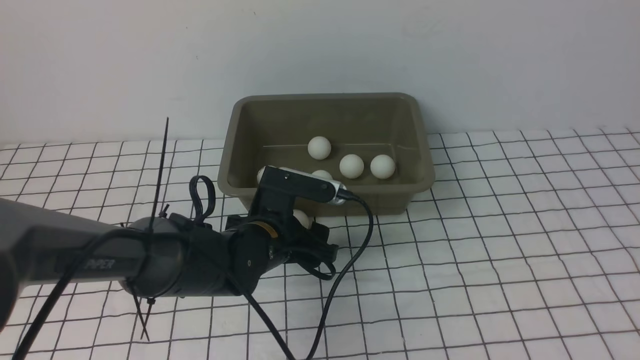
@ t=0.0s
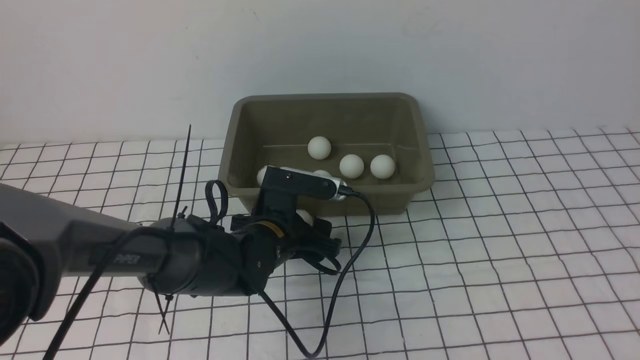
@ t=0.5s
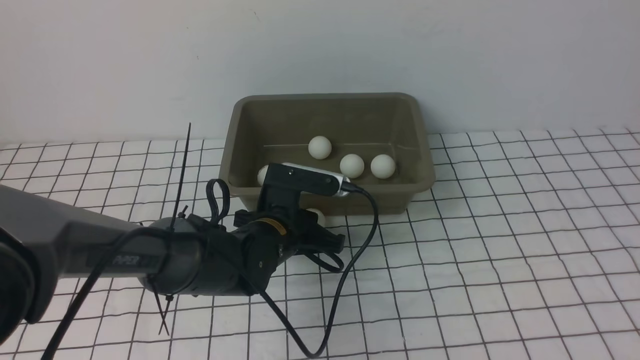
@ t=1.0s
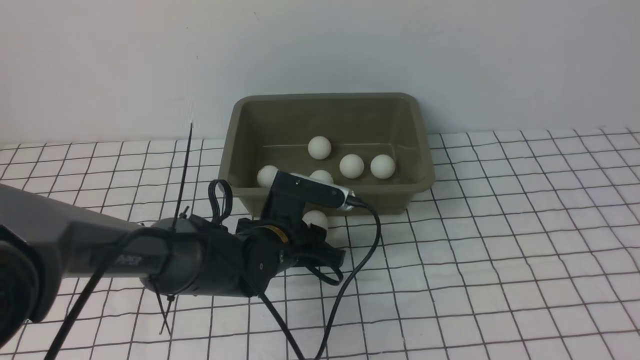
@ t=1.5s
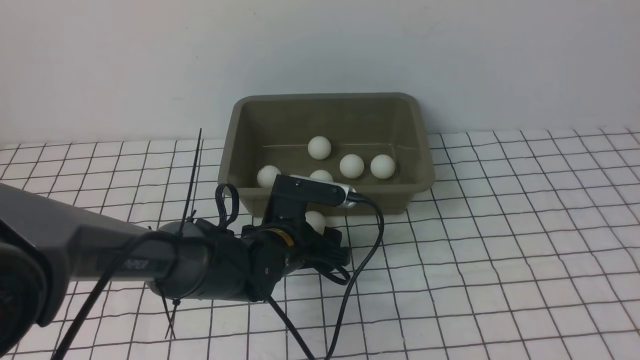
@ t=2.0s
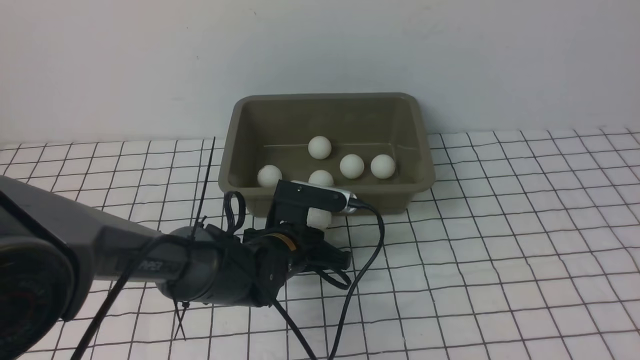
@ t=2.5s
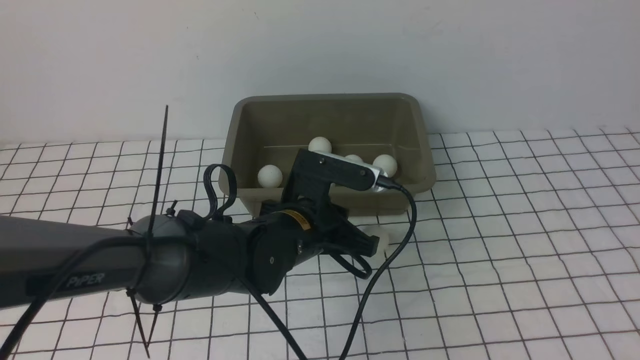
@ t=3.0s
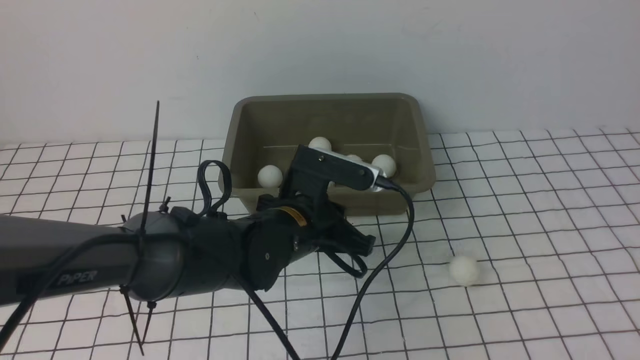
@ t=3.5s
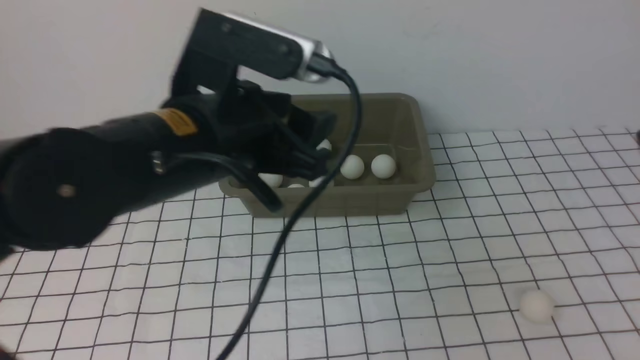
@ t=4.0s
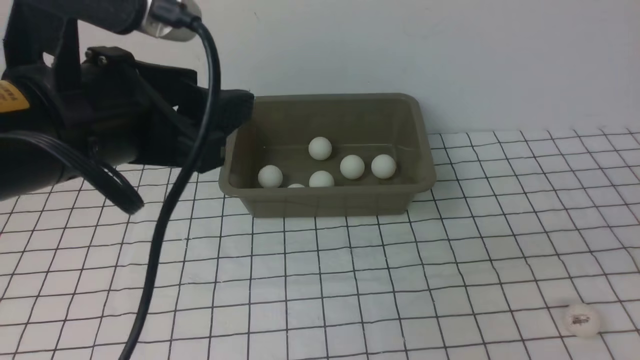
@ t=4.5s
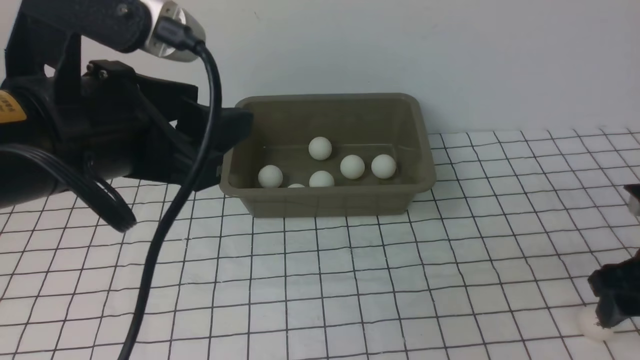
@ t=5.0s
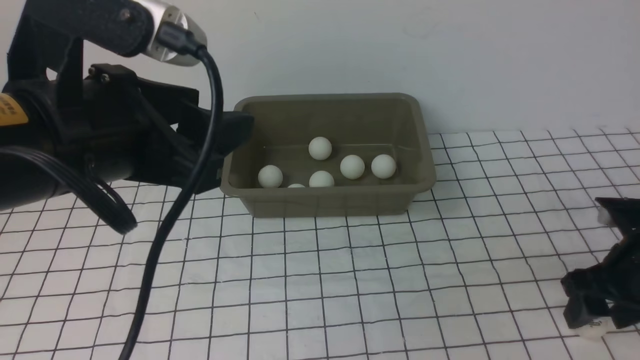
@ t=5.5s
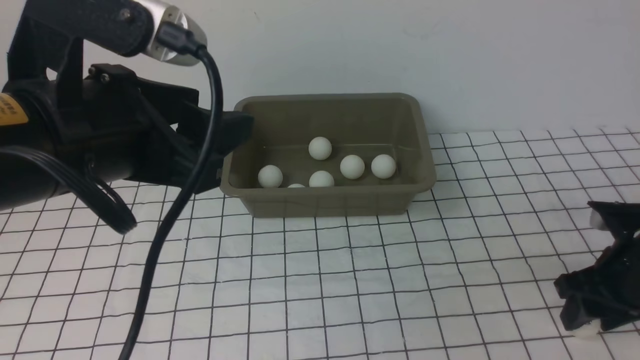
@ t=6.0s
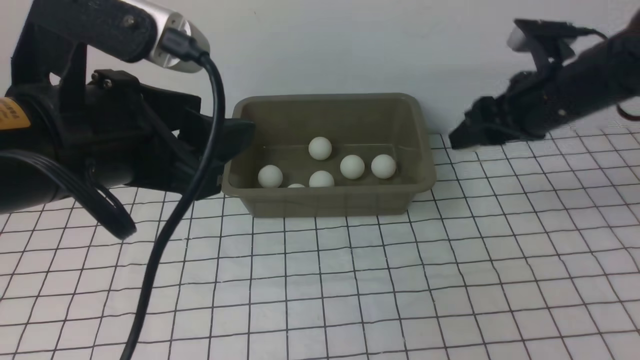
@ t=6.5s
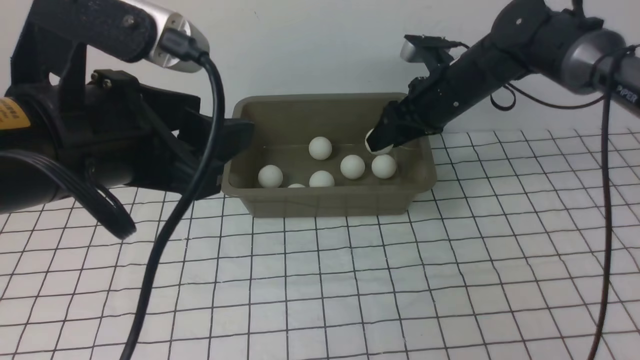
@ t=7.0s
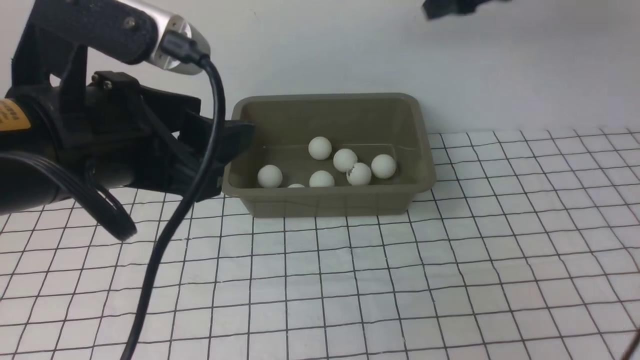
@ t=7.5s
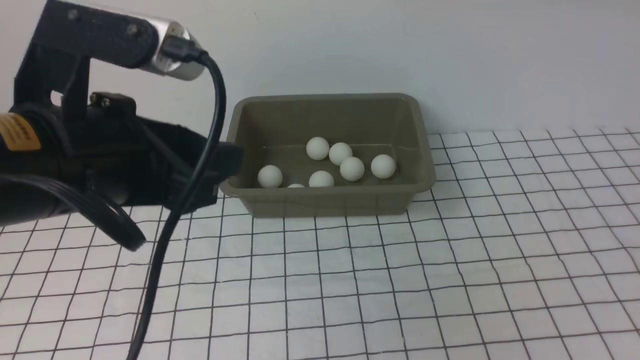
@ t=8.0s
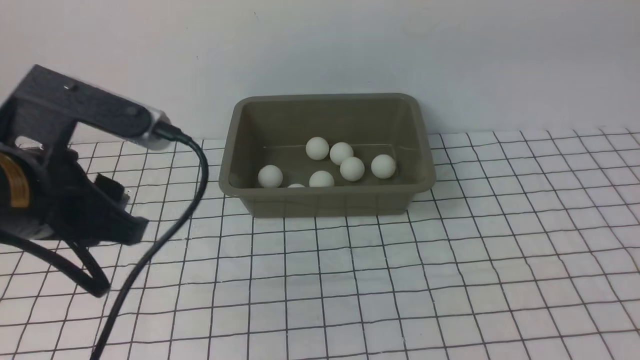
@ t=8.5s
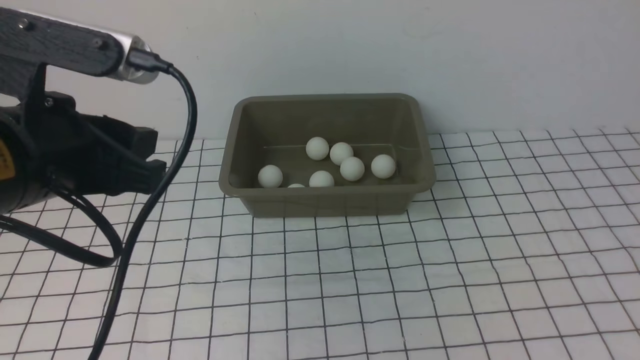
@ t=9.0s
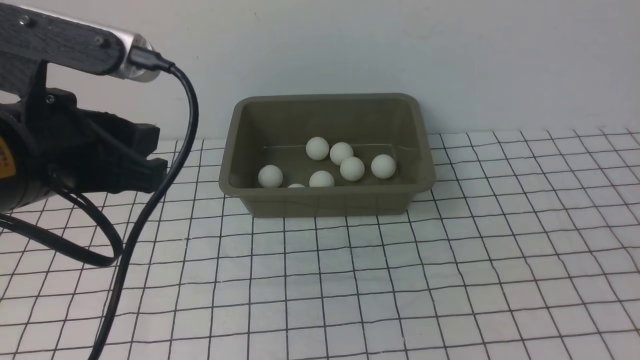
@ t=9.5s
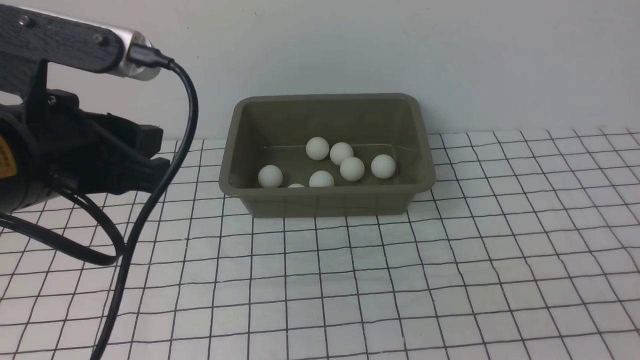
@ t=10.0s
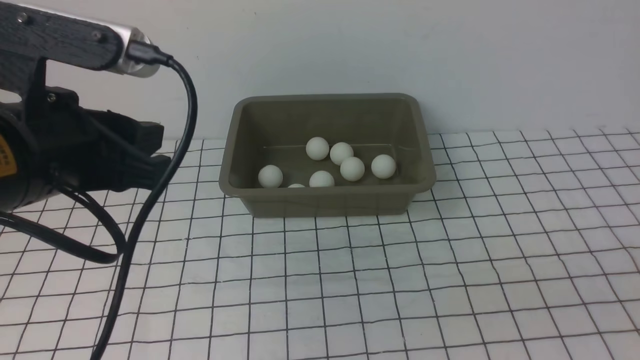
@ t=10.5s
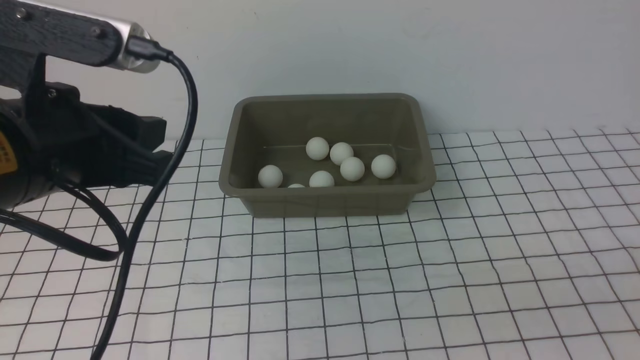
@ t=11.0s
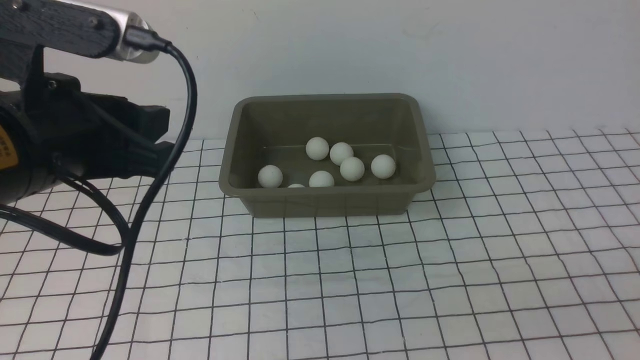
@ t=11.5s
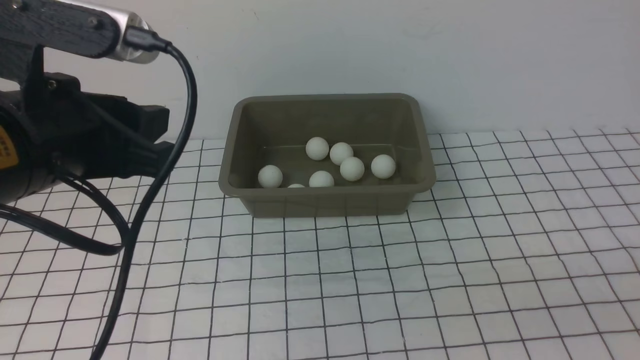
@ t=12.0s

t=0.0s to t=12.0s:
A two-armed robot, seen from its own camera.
t=0.0s to t=2.0s: The left gripper closes, then reopens.
t=2.0s to t=4.0s: The left gripper heads upward and backward, covering roughly 30 cm, and closes, then reopens, while the right gripper is displaced downward by approximately 20 cm.
t=4.0s to t=6.0s: The right gripper goes approximately 20 cm downward and forward, and closes its fingers.
t=6.0s to t=8.0s: The right gripper is displaced upward by some 35 cm, and opens its fingers.
t=8.0s to t=10.0s: The right gripper heads downward and backward, covering about 35 cm.

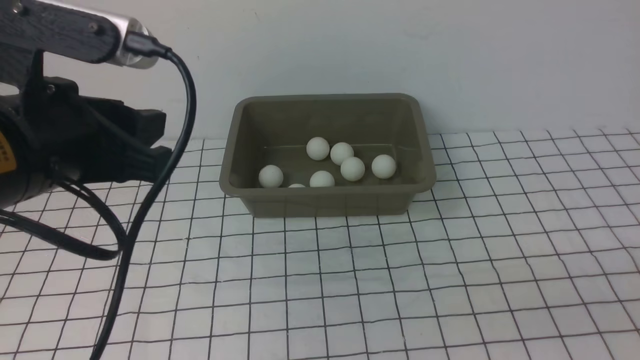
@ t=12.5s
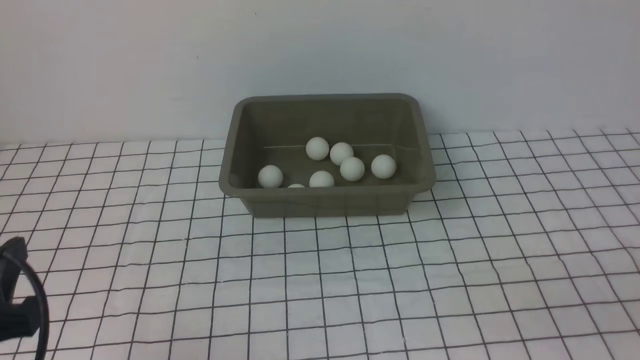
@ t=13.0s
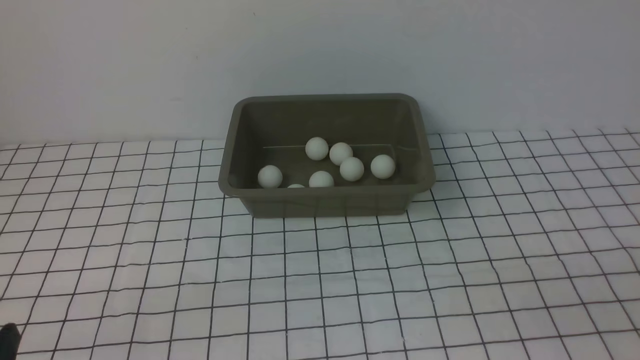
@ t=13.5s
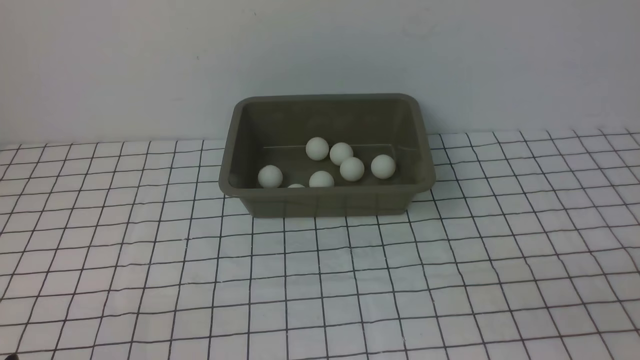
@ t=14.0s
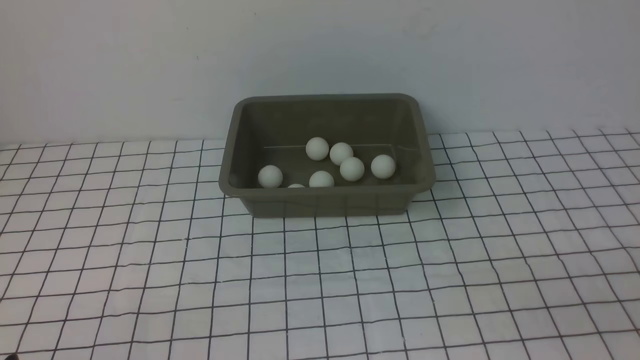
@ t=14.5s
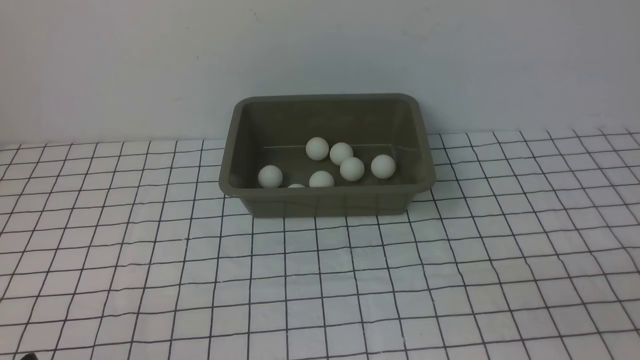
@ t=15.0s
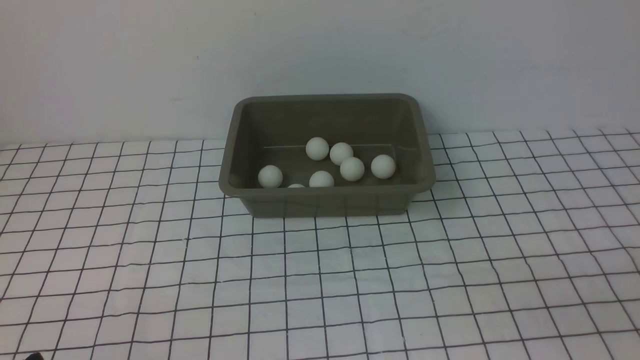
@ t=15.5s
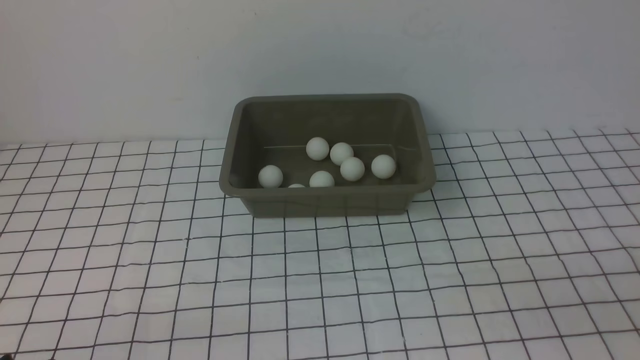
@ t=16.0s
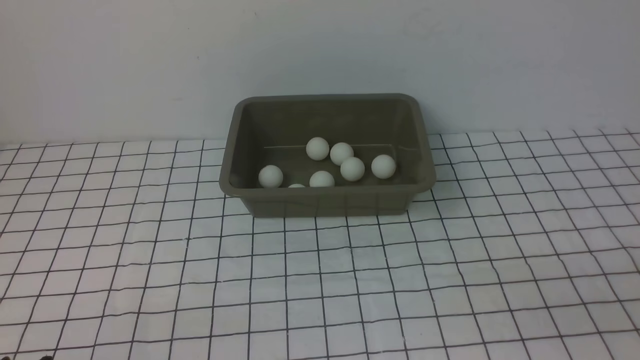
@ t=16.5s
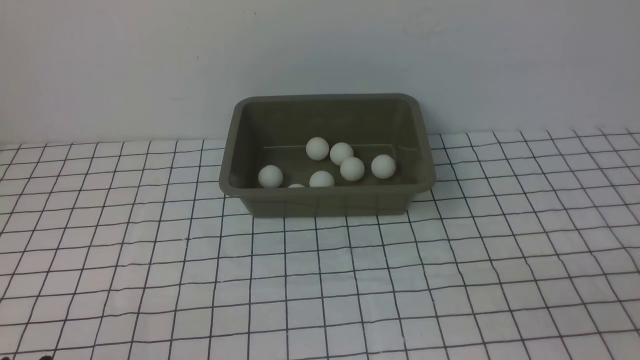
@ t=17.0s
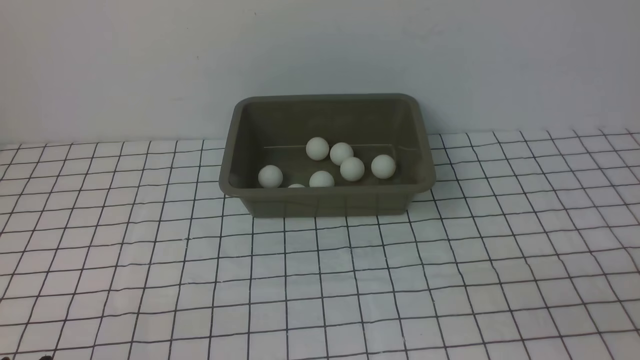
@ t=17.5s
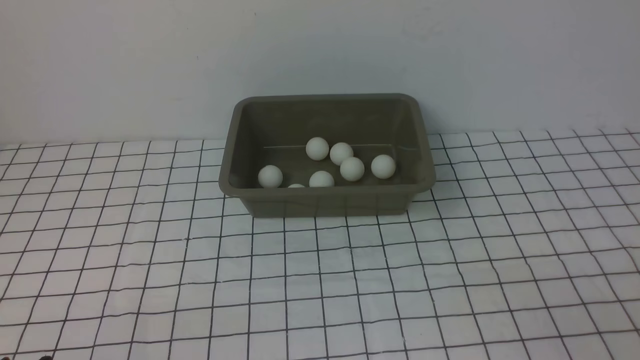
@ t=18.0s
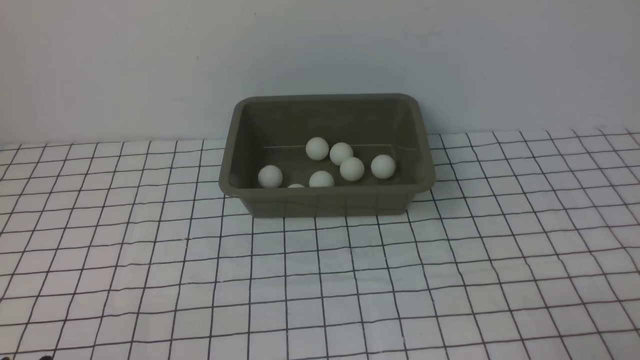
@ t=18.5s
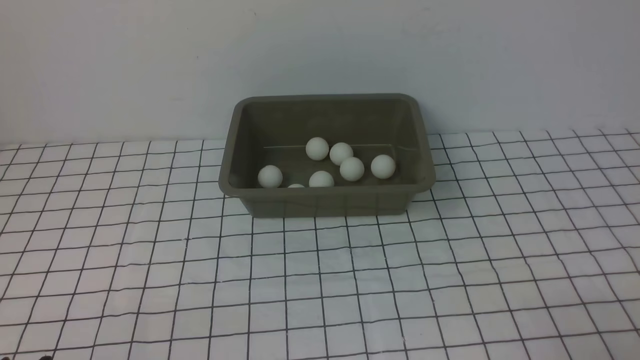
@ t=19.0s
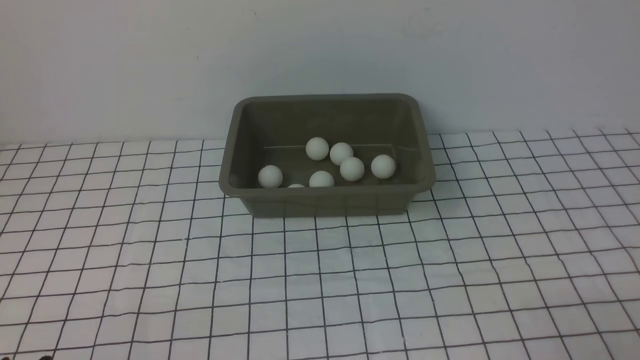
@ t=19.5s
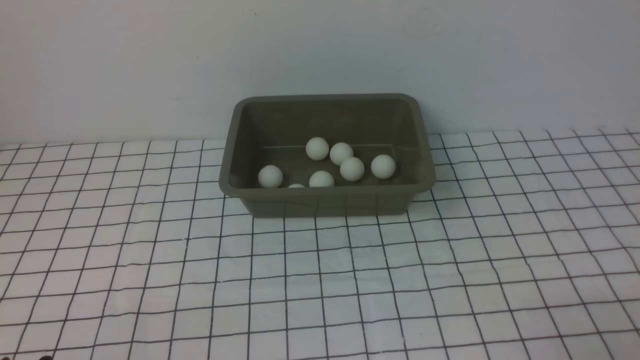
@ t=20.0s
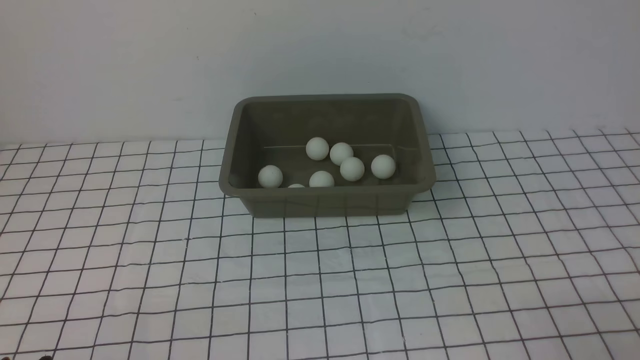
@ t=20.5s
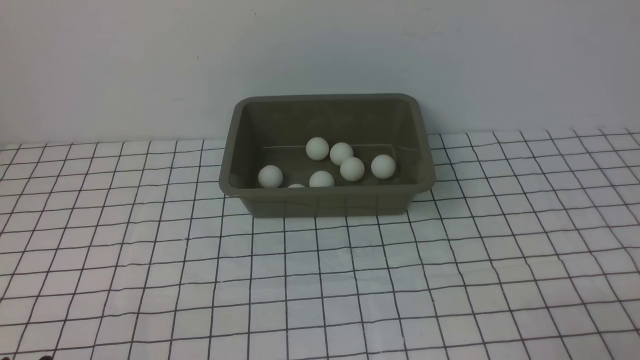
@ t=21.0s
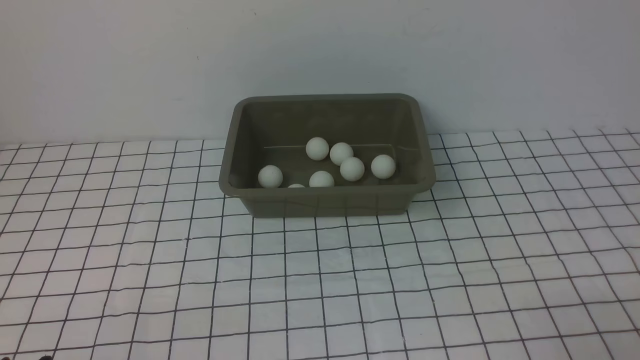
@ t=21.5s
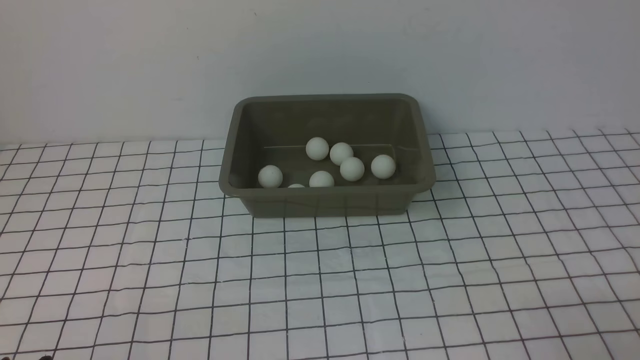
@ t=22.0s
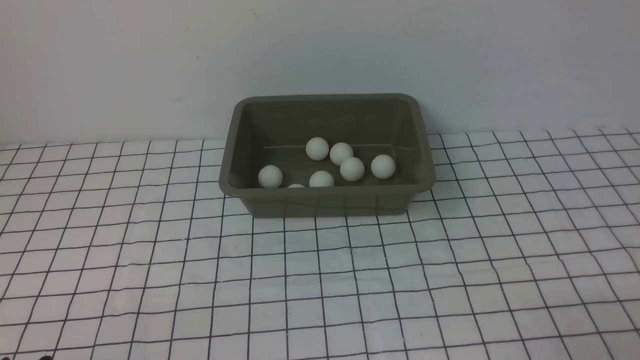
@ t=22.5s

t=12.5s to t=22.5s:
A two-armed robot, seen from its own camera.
t=12.5s to t=14.5s: The left gripper goes about 20 cm downward and backward.
t=20.5s to t=22.5s: Both grippers stay put.
